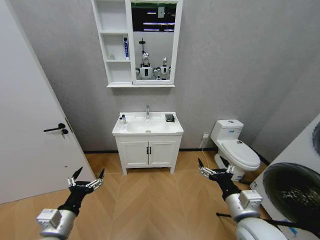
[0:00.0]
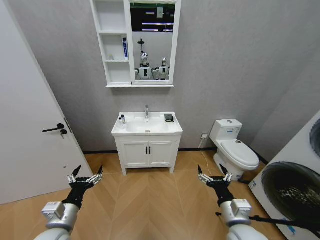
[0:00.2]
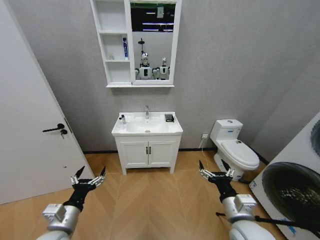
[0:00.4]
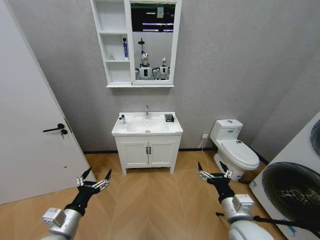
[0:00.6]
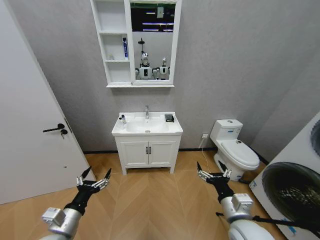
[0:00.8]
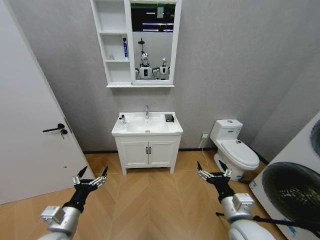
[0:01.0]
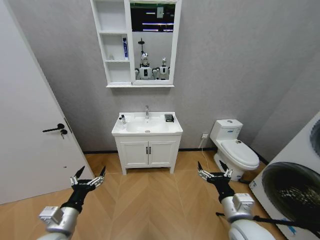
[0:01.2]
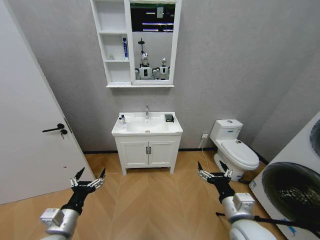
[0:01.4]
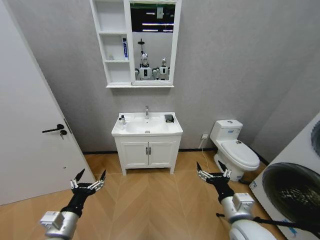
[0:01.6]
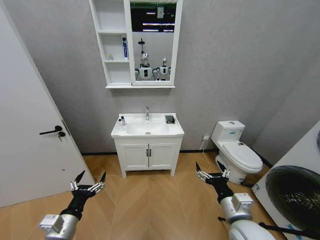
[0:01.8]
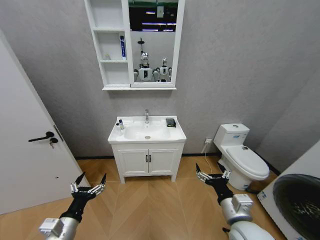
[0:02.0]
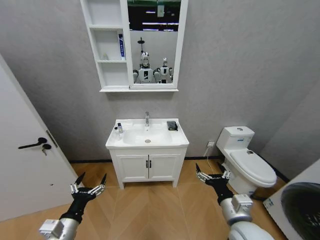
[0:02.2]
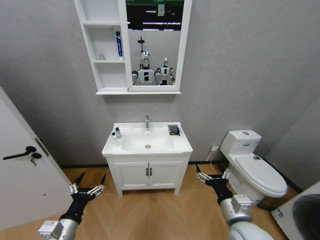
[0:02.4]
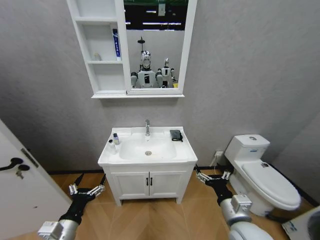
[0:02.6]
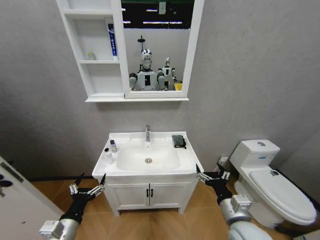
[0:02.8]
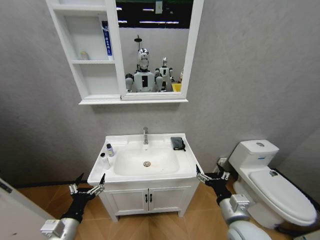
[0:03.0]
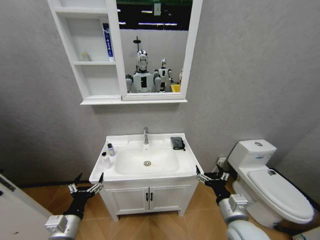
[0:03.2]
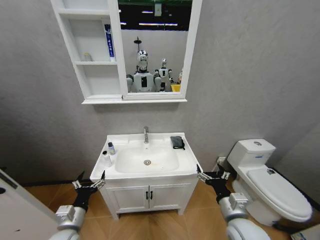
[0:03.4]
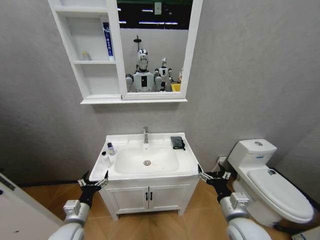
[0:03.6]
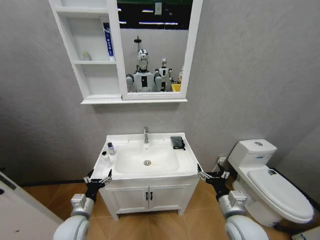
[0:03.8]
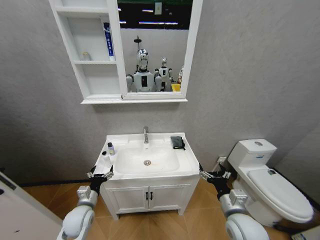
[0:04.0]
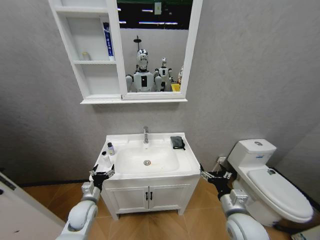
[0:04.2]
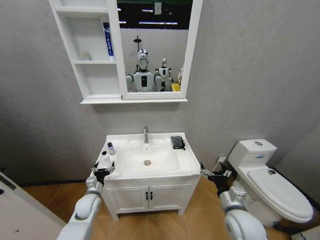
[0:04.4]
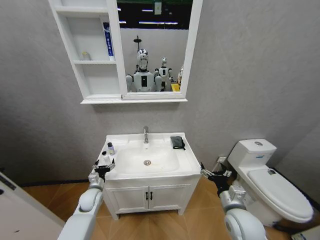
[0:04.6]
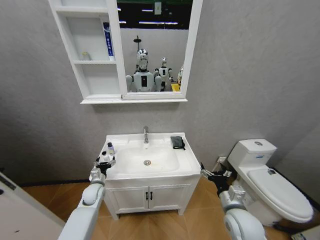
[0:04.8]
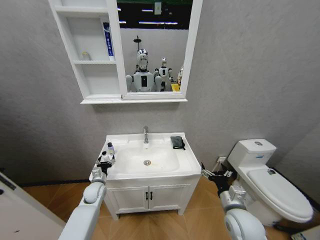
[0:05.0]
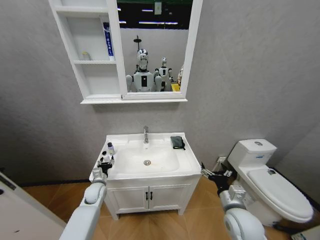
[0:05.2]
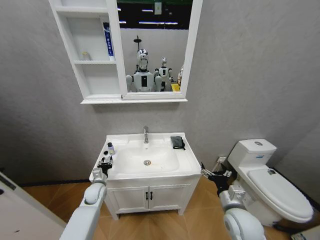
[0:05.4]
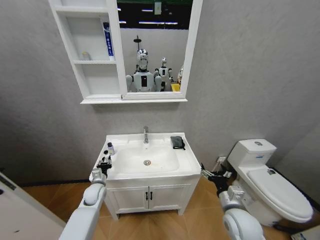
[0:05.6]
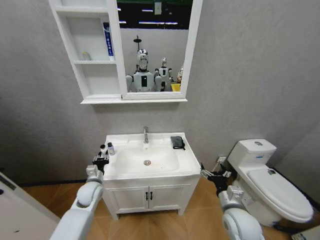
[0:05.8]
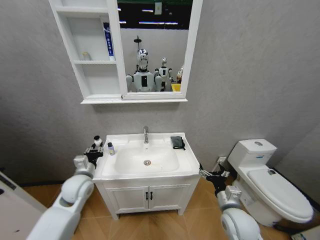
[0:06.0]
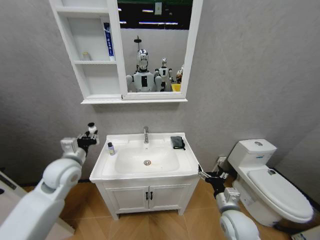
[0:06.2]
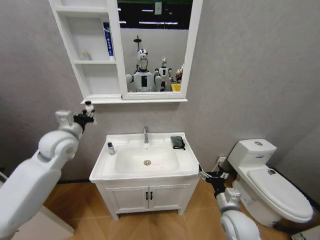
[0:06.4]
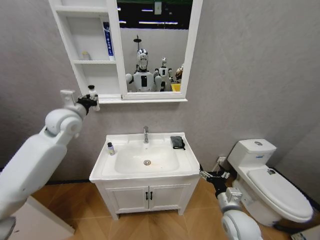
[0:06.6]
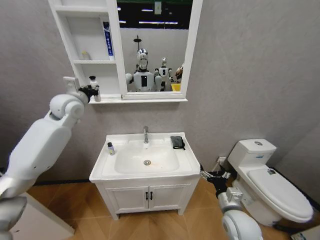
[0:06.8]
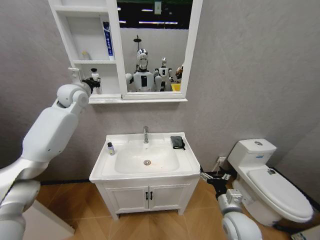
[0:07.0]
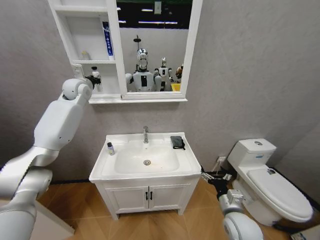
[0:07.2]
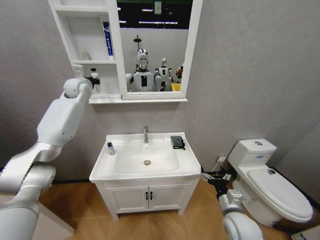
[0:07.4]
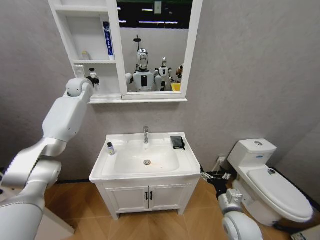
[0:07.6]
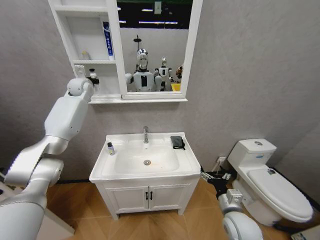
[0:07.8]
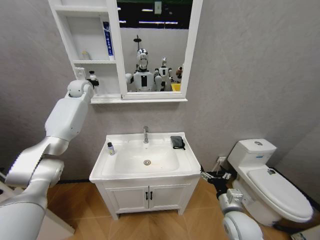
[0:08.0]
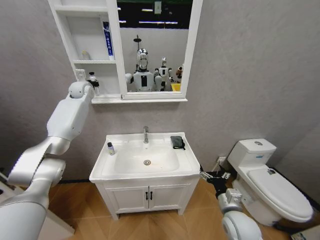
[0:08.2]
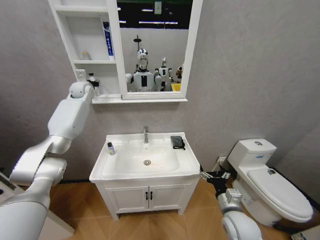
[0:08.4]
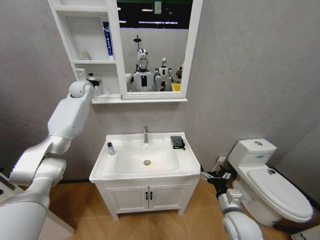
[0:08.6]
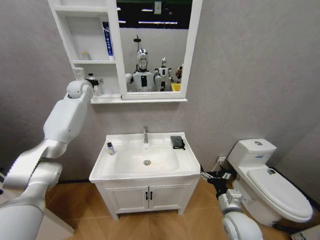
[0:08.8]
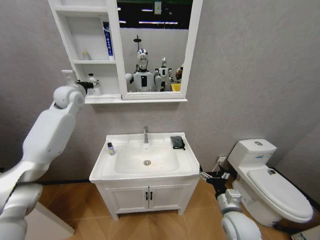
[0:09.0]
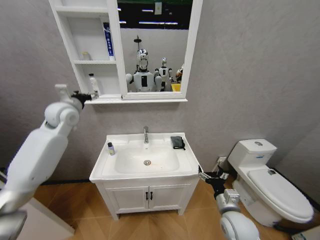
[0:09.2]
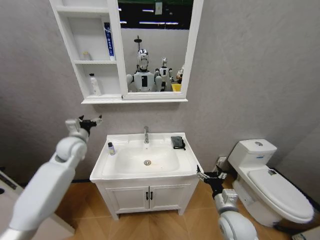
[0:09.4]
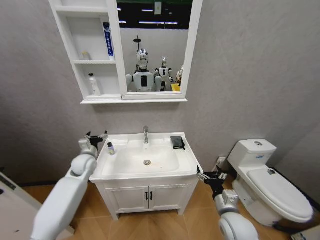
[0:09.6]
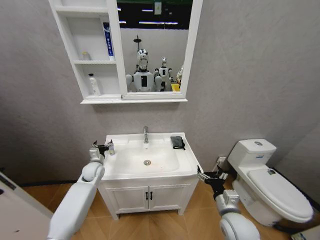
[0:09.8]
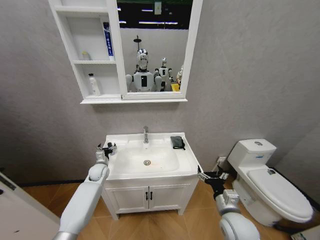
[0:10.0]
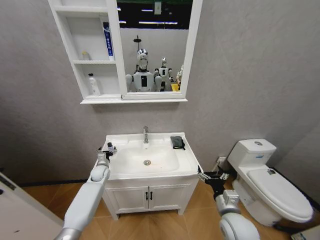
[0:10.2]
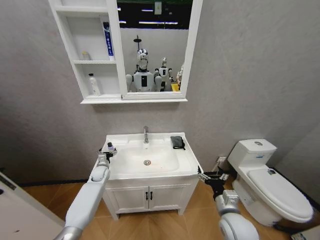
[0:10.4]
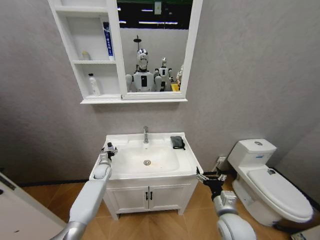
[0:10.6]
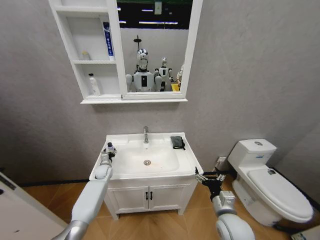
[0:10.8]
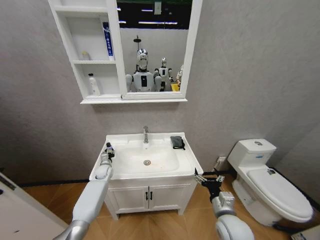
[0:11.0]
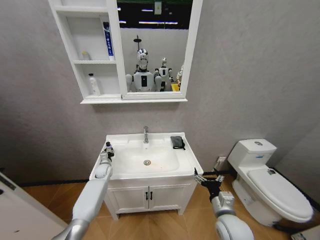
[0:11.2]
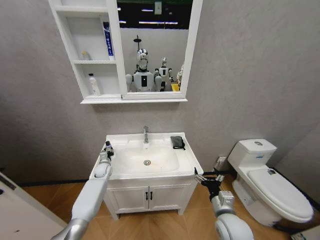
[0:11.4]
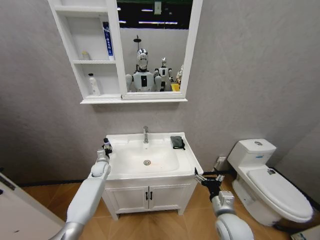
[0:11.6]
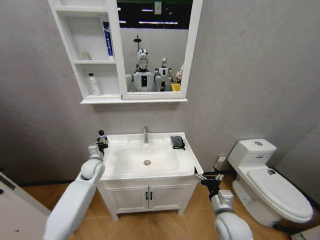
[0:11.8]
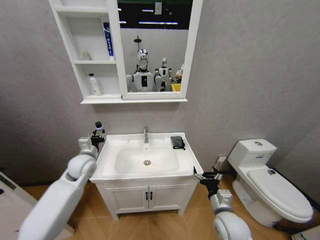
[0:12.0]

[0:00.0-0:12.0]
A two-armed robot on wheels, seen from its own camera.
Task of the whole recording: Move facial cleanser and shampoo from washbasin to cabinet, then wipe washbasin with towel.
0:03.0 to 0:04.4: The right gripper changes place by approximately 5 cm. Meanwhile the left gripper heads forward and downward, covering approximately 20 cm.
0:04.4 to 0:06.0: The left gripper is displaced upward by some 15 cm, and closes up.
0:06.0 to 0:07.6: The left gripper travels forward and upward by some 40 cm.
0:07.6 to 0:09.0: The left gripper moves backward, about 5 cm, and opens up.
0:09.0 to 0:10.4: The left gripper goes about 40 cm downward.
0:10.4 to 0:12.0: The left gripper heads upward and backward, covering roughly 20 cm, and closes up.

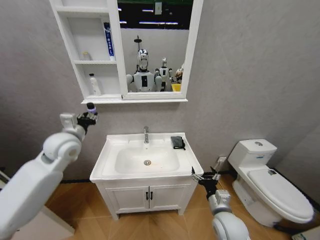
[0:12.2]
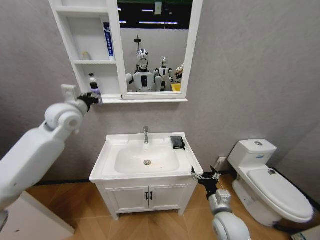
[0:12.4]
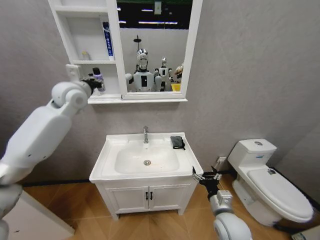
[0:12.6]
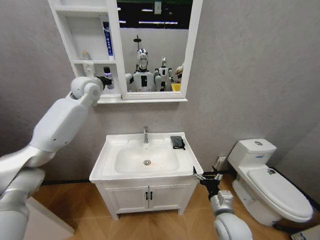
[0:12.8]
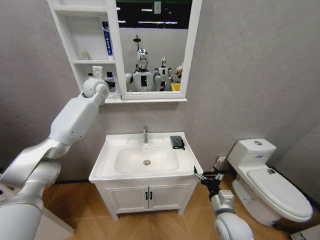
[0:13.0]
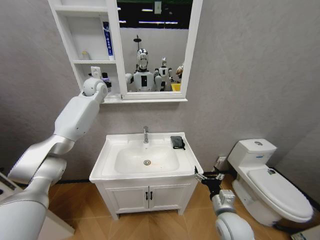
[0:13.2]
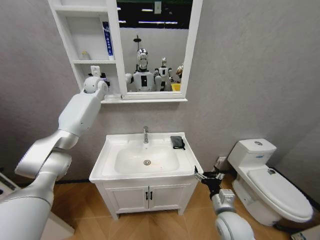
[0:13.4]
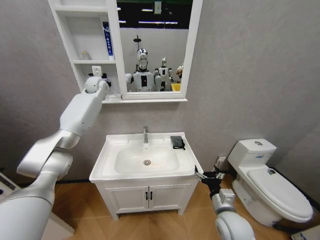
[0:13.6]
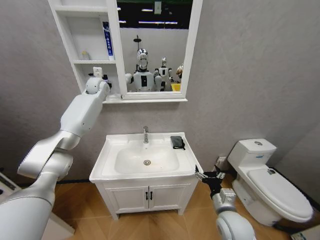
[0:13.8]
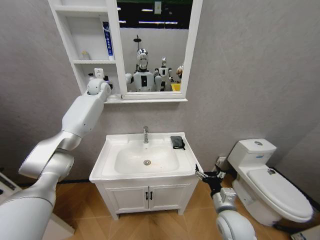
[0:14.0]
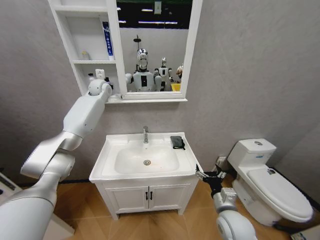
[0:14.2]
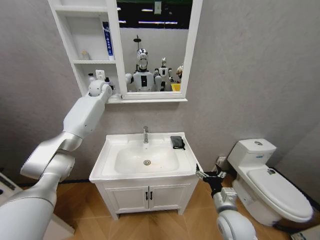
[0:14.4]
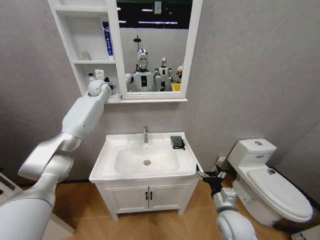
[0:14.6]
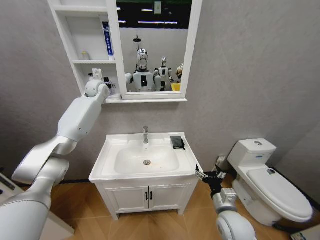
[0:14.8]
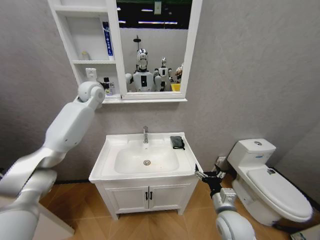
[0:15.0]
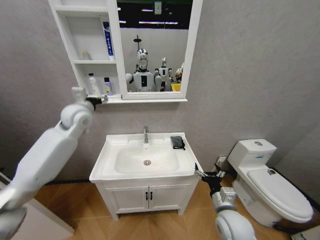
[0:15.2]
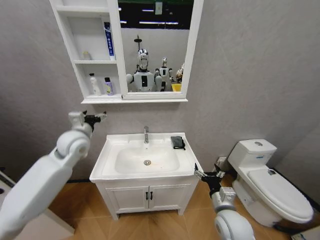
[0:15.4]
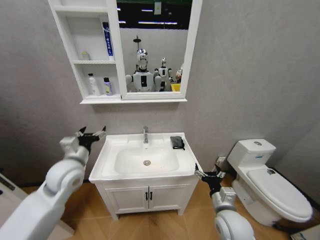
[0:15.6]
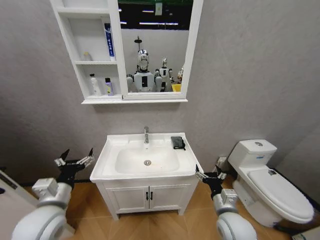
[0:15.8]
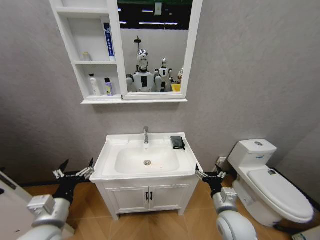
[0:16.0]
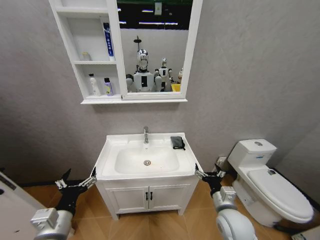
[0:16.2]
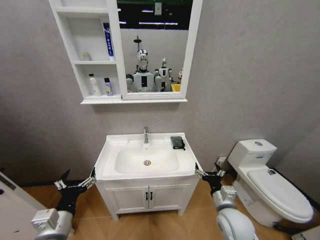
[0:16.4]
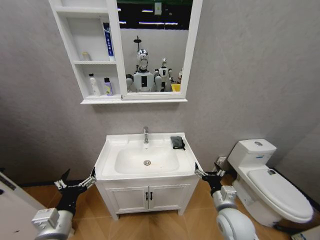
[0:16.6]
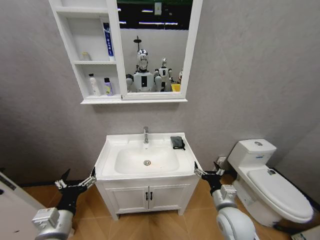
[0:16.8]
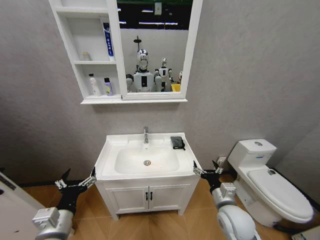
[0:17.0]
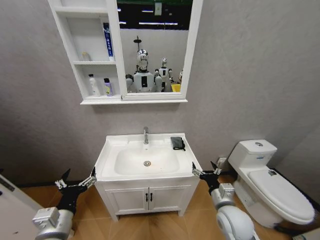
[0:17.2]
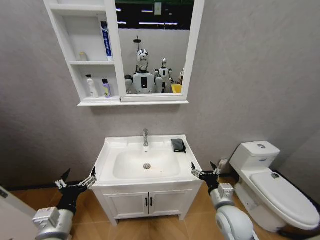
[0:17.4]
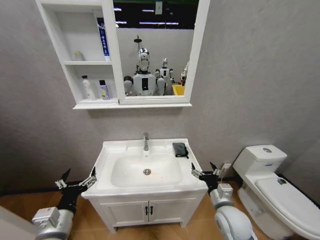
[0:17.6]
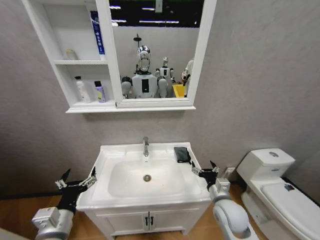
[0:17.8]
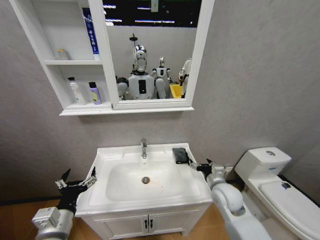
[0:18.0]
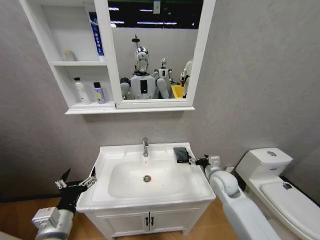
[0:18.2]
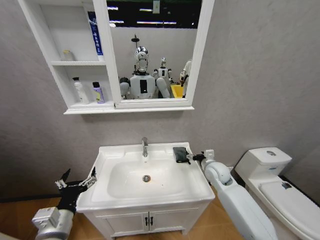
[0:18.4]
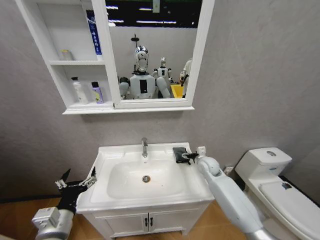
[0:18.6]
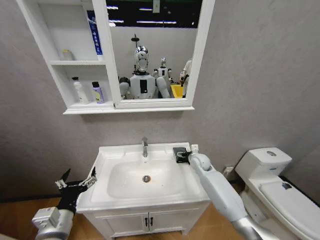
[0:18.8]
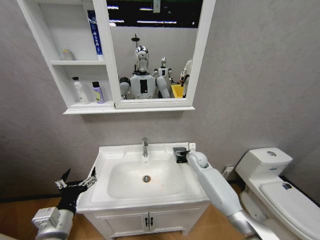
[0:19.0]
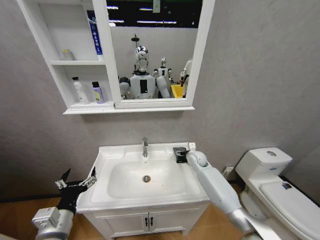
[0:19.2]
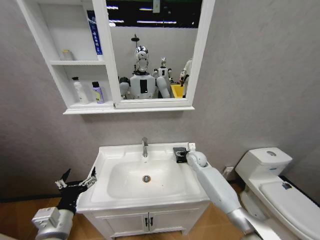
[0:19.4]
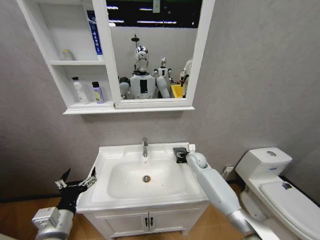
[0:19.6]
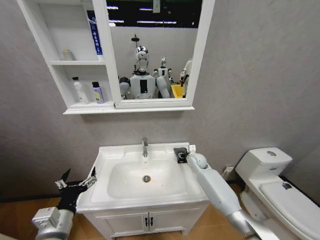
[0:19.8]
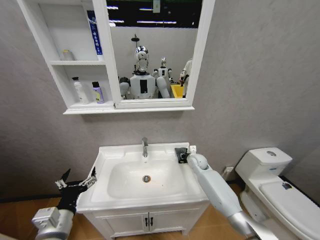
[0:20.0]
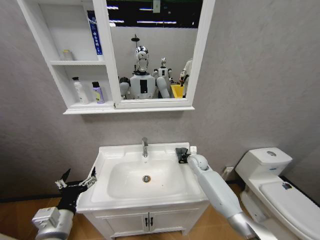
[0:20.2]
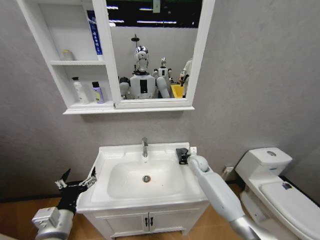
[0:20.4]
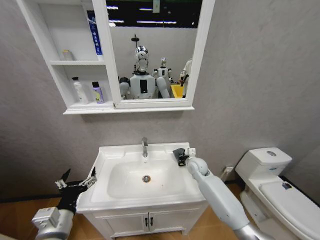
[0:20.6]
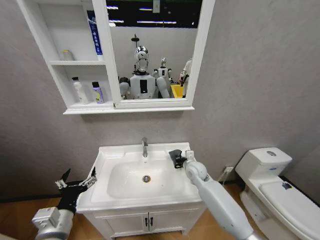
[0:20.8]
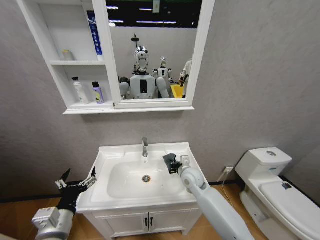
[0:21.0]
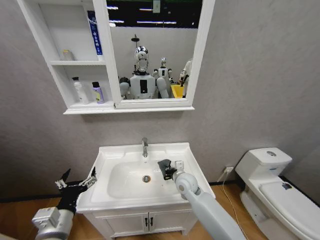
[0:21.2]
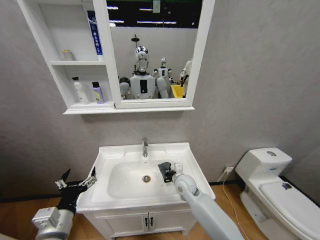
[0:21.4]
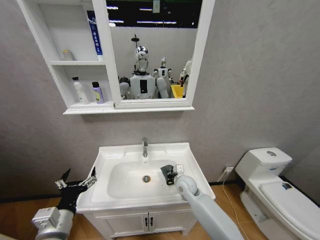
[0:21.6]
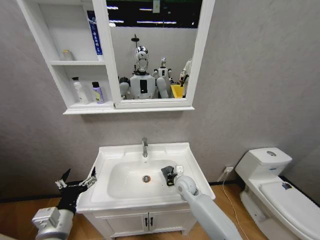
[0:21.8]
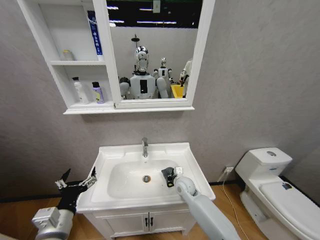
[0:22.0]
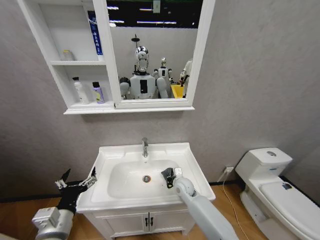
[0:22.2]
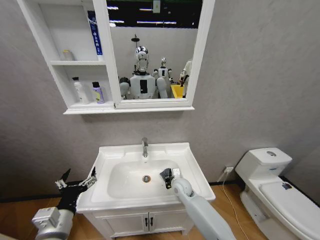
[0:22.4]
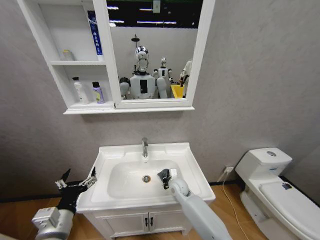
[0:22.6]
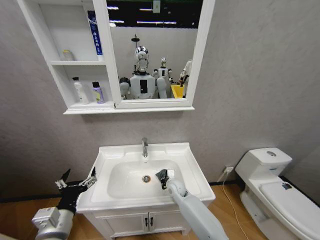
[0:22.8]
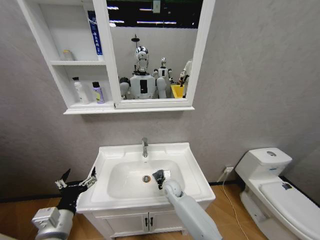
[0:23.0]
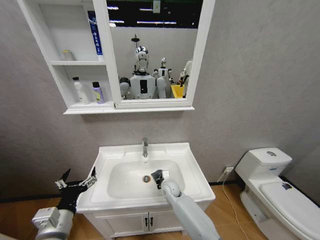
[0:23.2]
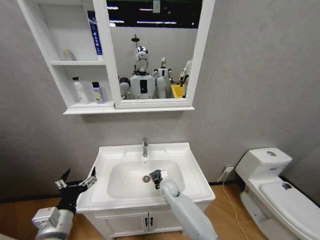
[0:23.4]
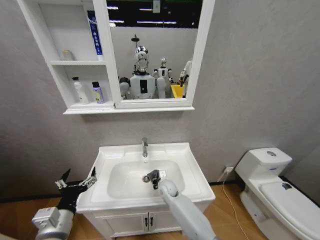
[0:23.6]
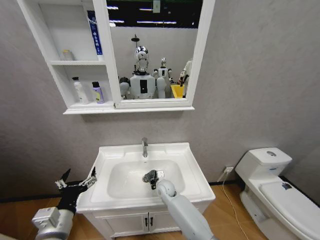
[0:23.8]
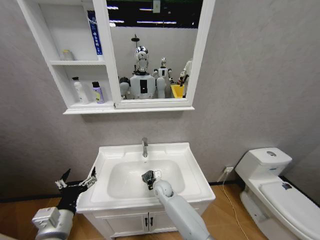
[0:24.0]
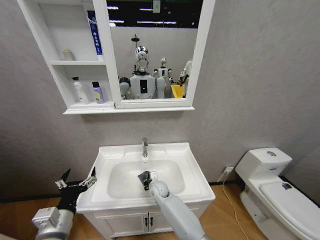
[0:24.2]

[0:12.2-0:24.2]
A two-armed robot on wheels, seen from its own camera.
Task of the whole recording: Move facial cleanser and shampoo from washbasin to cabinet, then wipe washbasin with towel.
0:12.2 to 0:13.8: The left gripper shifts roughly 30 cm forward and upward.
0:13.8 to 0:15.2: The left gripper is displaced backward by some 20 cm, and opens.
0:15.2 to 0:16.6: The left gripper travels backward and downward by about 40 cm.
0:16.6 to 0:18.2: The right gripper moves forward, about 15 cm.
0:18.2 to 0:19.8: The right gripper is displaced forward by some 15 cm, and closes.
0:19.8 to 0:21.2: The right gripper moves backward and to the left, about 15 cm, and closes up.
0:21.2 to 0:22.6: The right gripper heads downward, covering roughly 10 cm.
0:22.6 to 0:24.2: The right gripper is displaced to the left by some 10 cm.
